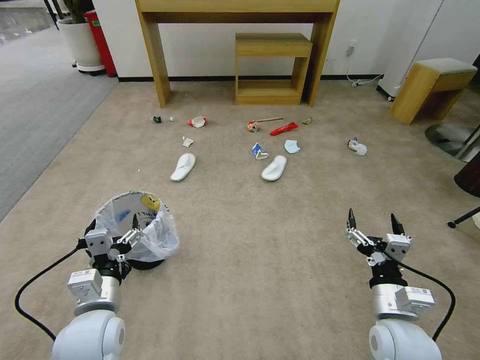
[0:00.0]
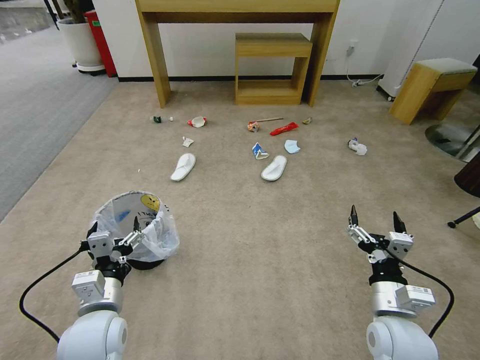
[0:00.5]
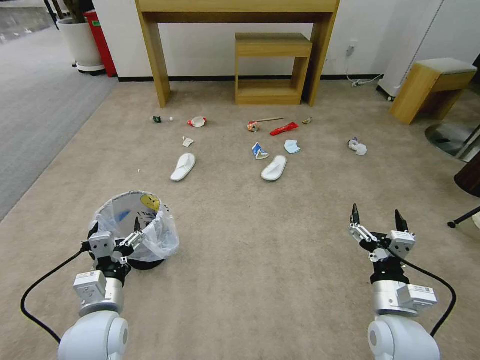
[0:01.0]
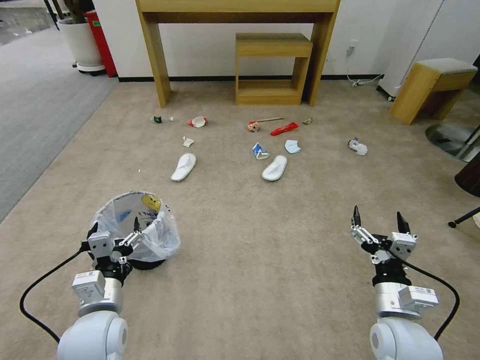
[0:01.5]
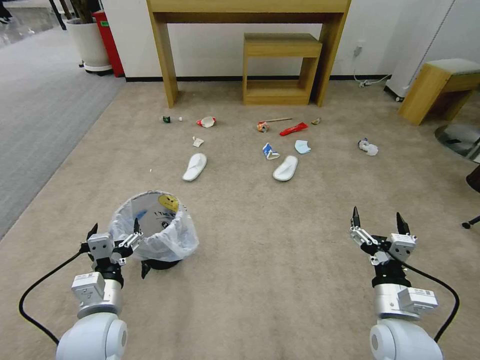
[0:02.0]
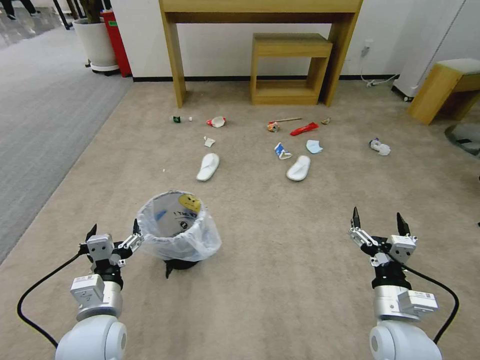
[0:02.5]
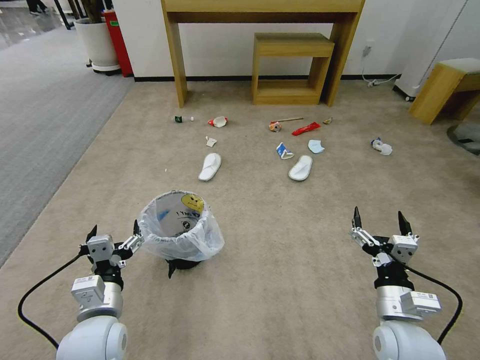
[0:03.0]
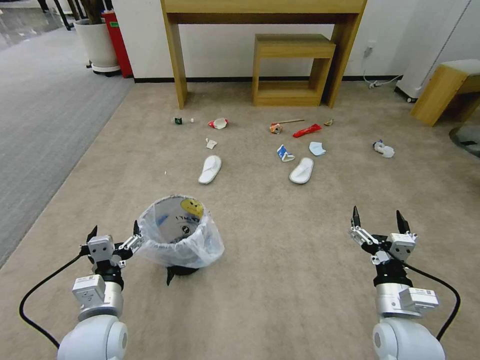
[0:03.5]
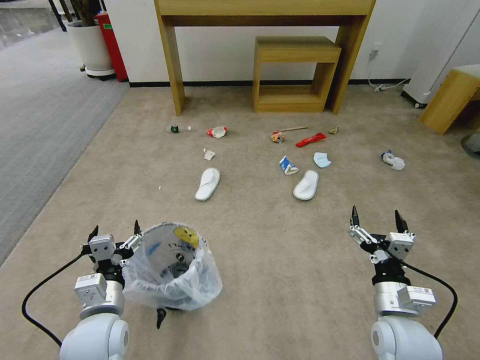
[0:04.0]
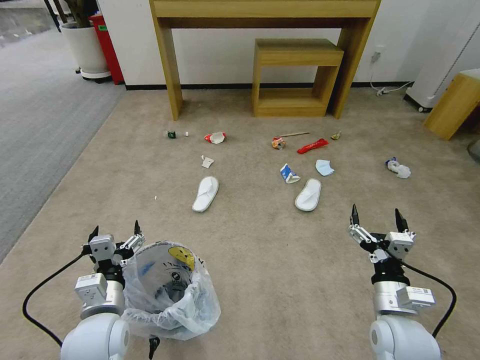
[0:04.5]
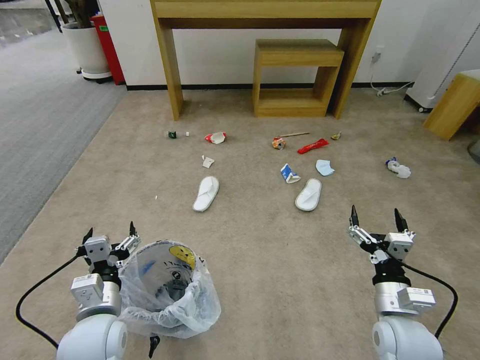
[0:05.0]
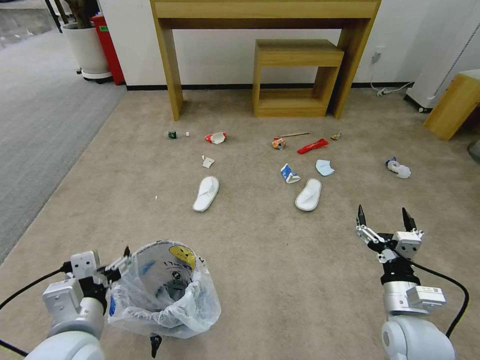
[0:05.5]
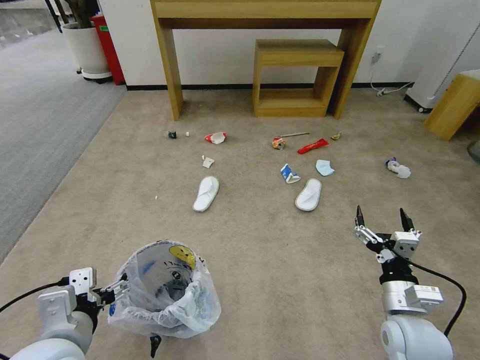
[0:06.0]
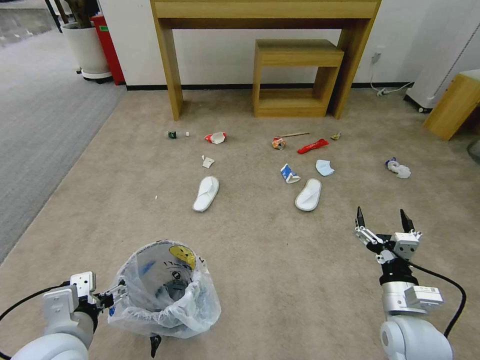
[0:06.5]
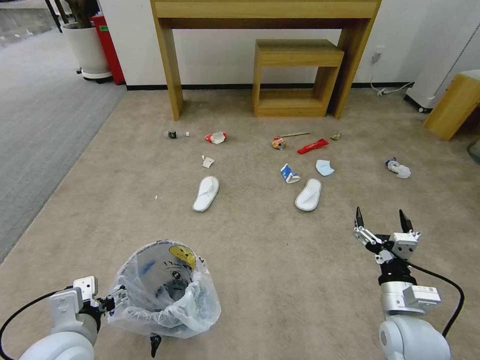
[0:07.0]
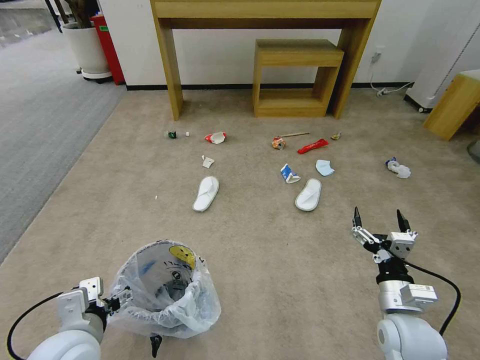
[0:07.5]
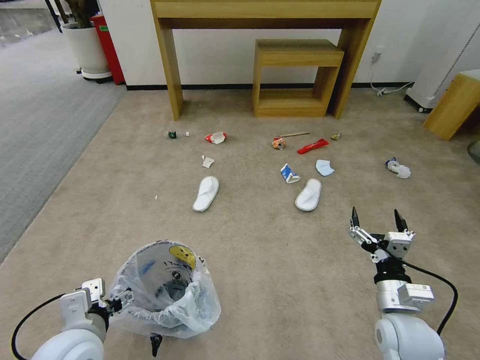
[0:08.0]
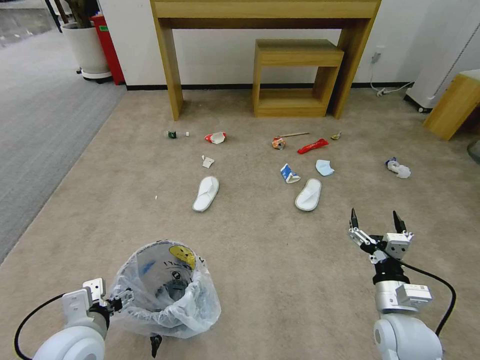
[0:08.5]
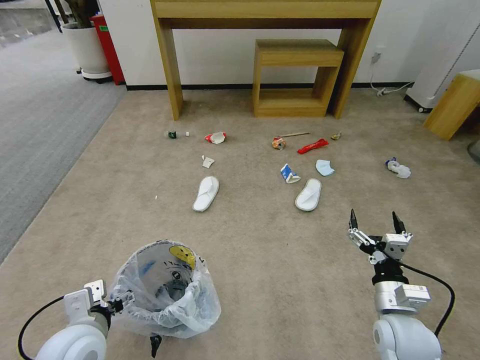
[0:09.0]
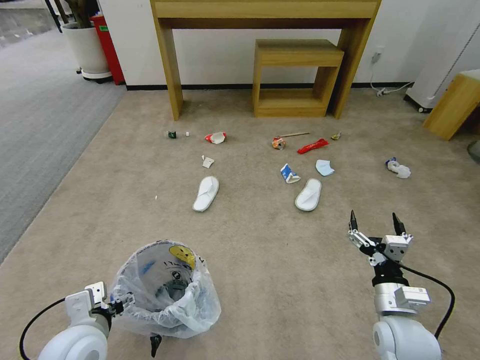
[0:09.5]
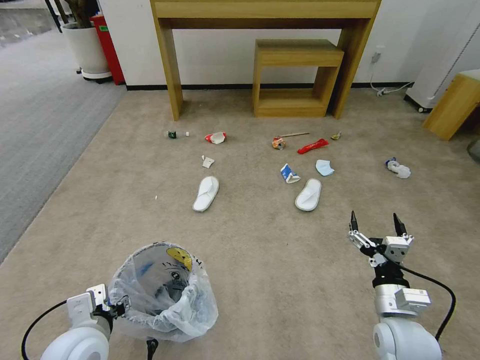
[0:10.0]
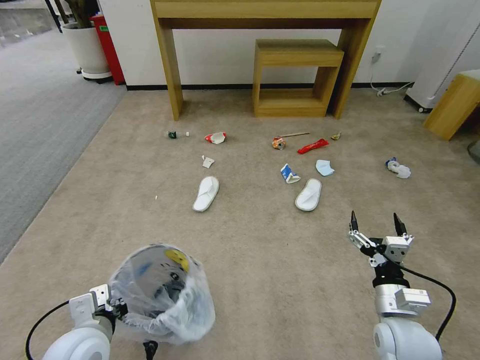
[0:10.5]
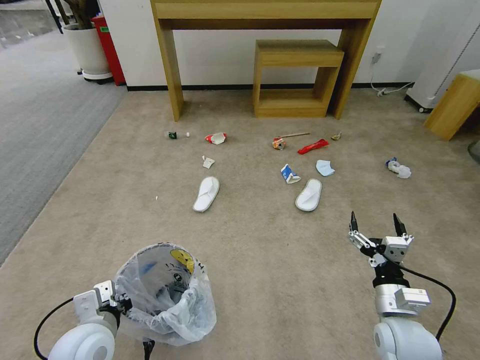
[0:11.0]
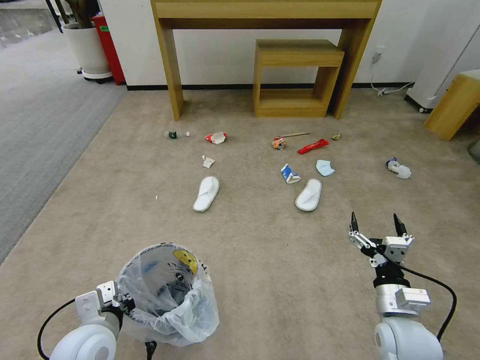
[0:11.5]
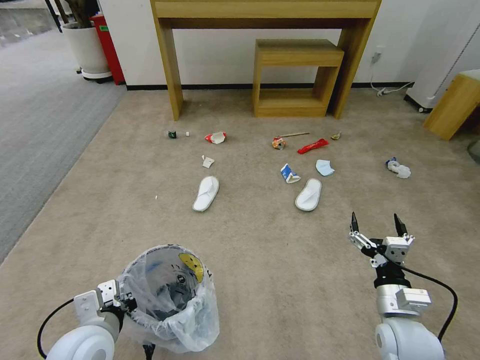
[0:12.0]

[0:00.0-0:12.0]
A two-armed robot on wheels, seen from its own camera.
Task of the whole recording: Pick up the trash bin and place the garbage on the floor into it.
0:04.0 to 0:06.0: The left gripper moves upward and backward, some 10 cm.
0:06.0 to 0:08.0: The left gripper moves downward, some 5 cm.
0:08.0 to 0:10.0: The left gripper closes up.
0:10.0 to 0:12.0: The left gripper closes up.

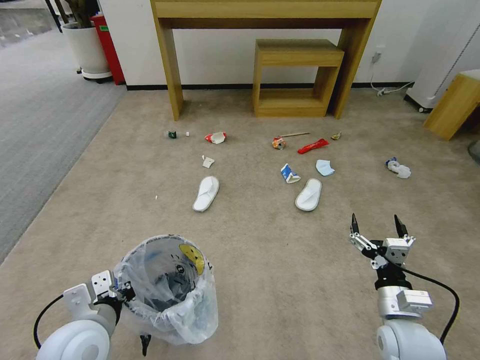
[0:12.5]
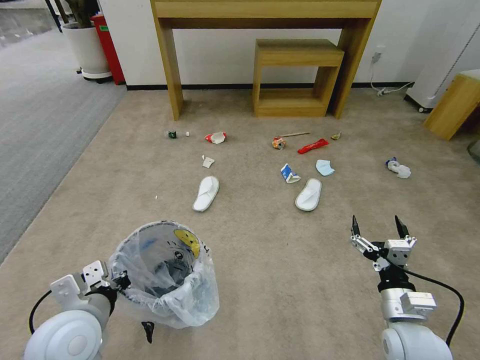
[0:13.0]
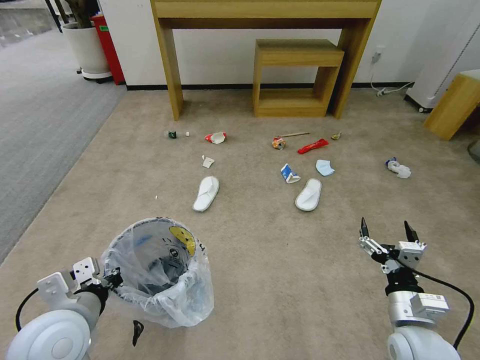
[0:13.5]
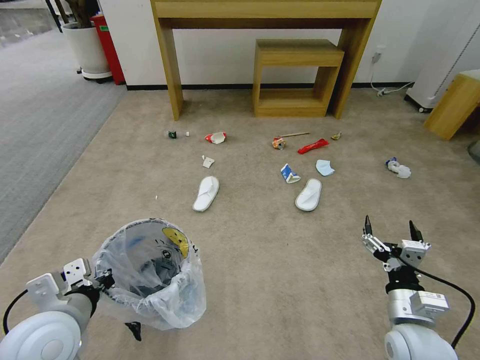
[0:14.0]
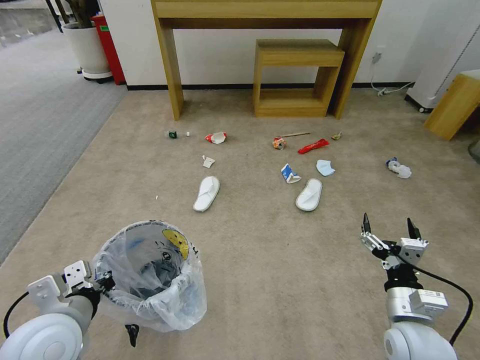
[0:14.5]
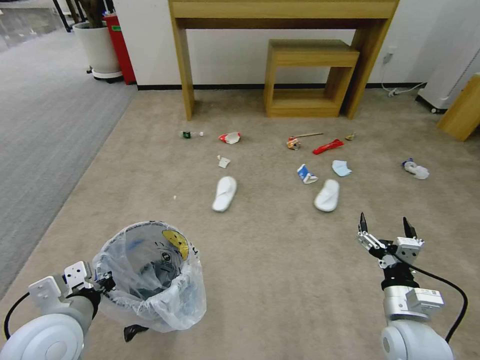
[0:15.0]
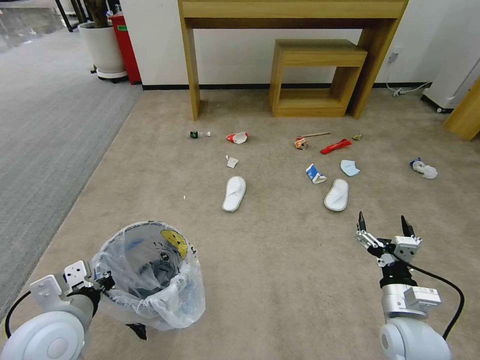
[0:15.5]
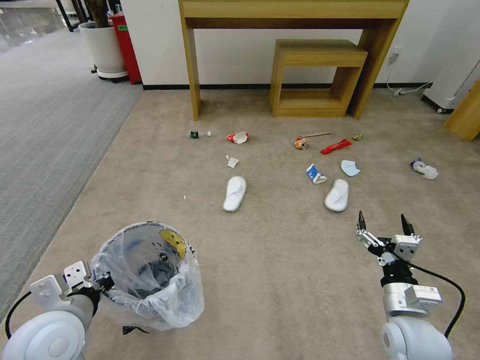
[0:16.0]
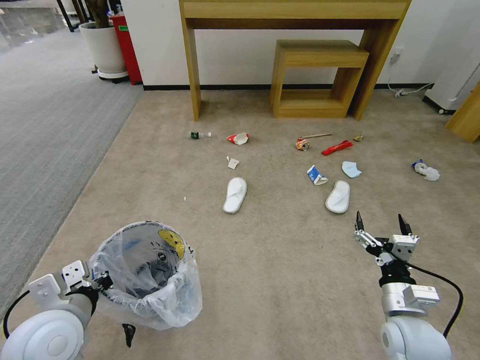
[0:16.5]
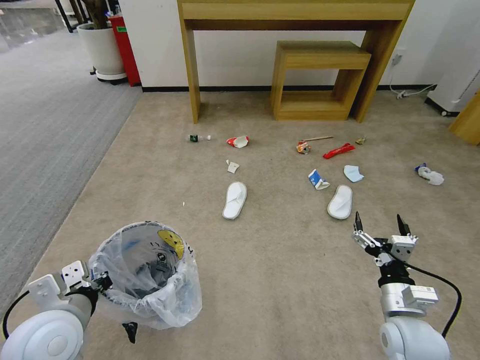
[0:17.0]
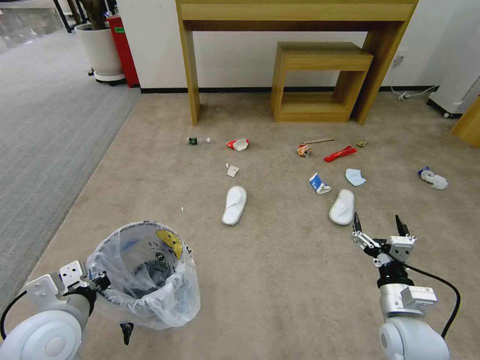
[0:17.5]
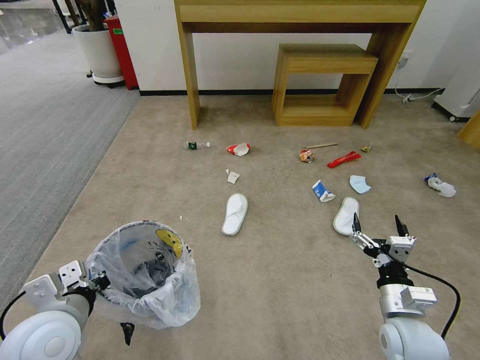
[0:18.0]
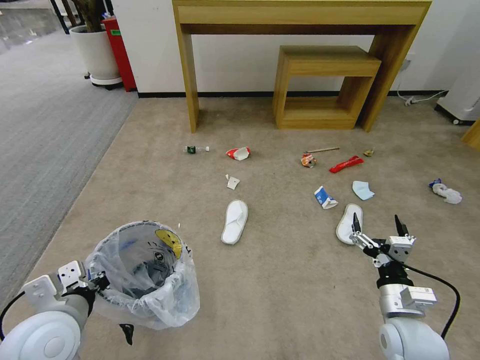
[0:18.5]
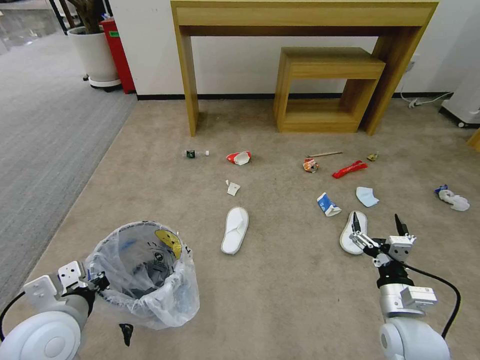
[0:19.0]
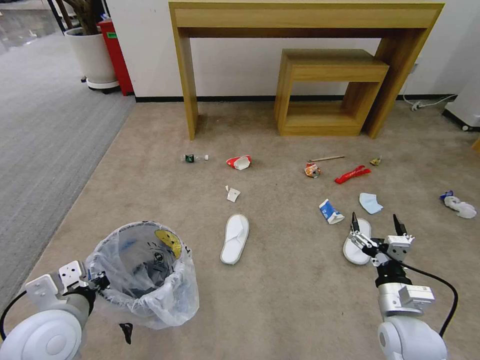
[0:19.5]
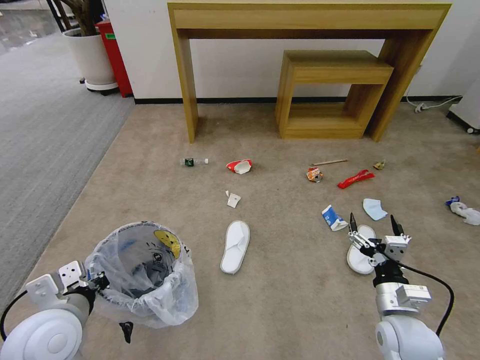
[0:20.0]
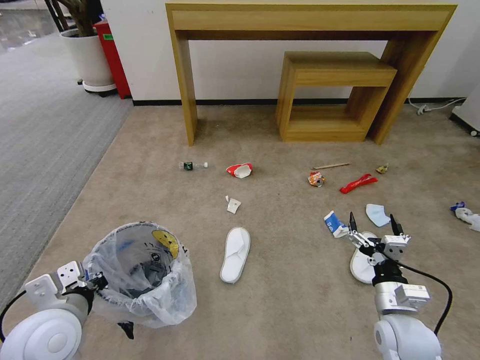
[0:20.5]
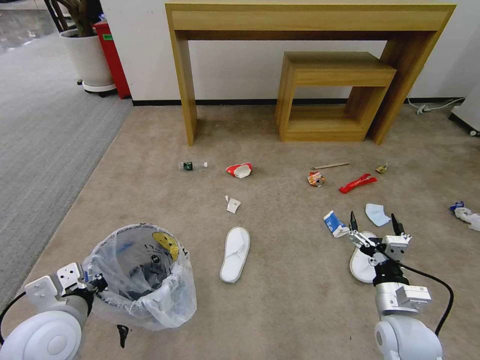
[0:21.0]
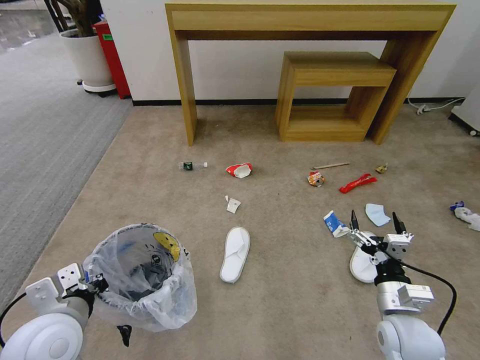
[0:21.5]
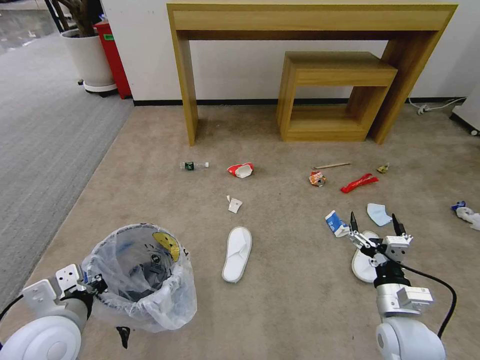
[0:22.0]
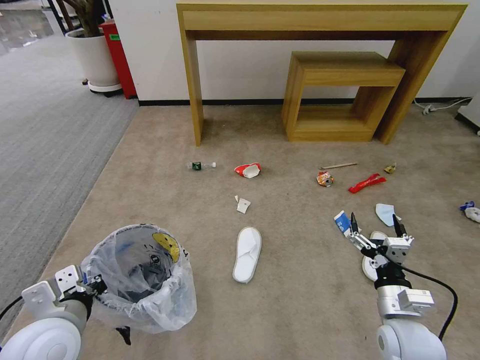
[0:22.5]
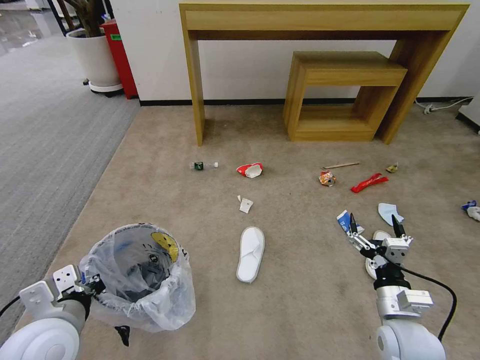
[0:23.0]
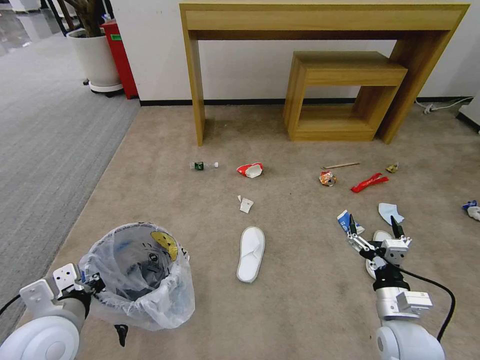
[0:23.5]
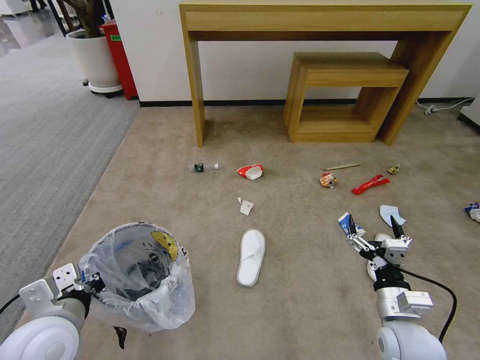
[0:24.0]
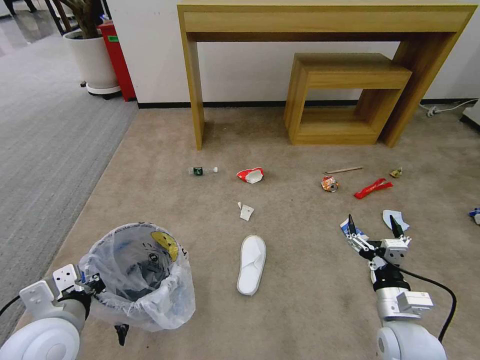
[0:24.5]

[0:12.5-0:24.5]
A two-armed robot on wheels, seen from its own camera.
Task of the whole recording: Pick up the trash bin and place the garbage on the floor into it.
0:12.5 to 0:16.5: The grippers make only small movements.
0:20.5 to 0:22.5: The grippers stay close to where they were, moving slightly.
0:22.5 to 0:24.5: Both grippers stay put.

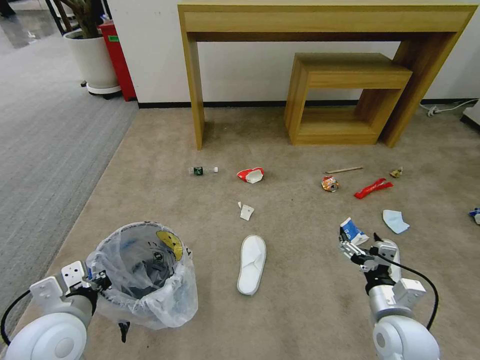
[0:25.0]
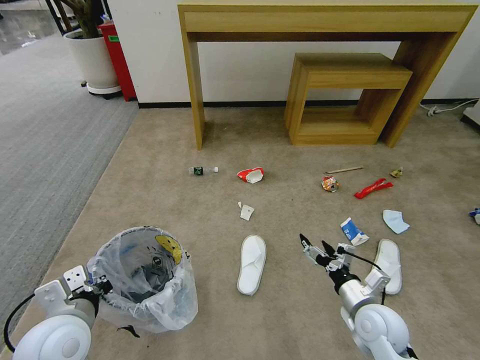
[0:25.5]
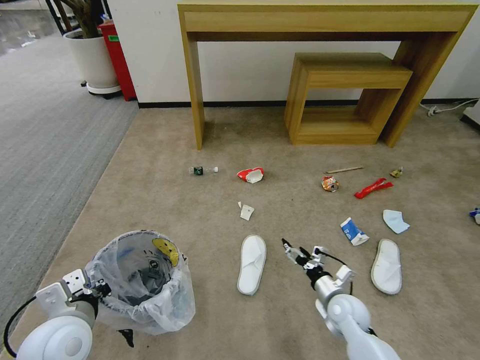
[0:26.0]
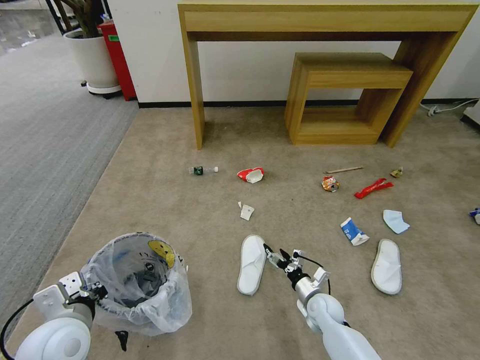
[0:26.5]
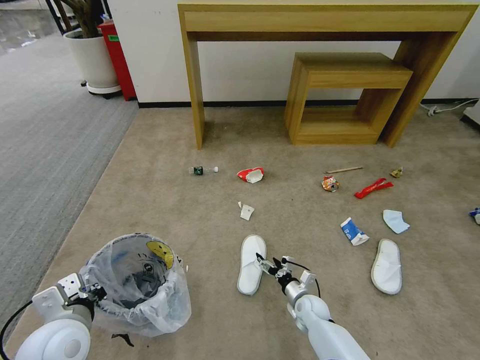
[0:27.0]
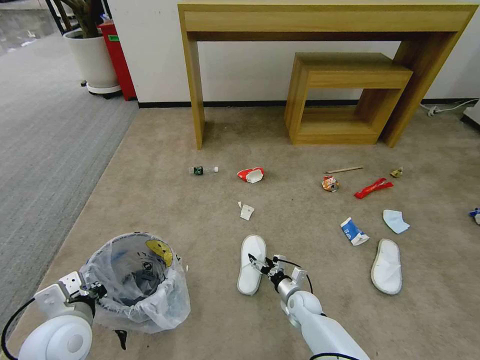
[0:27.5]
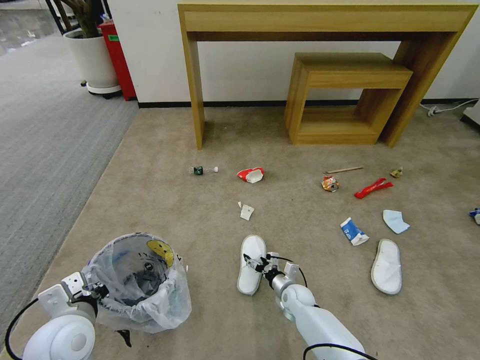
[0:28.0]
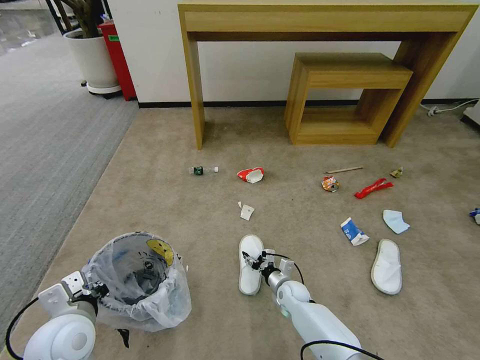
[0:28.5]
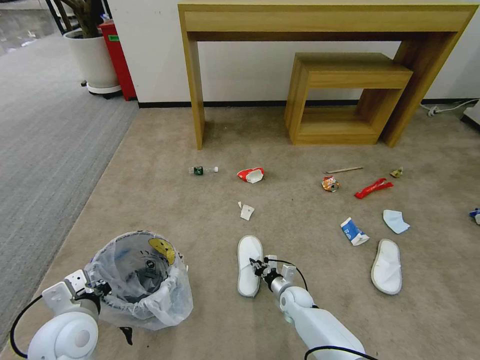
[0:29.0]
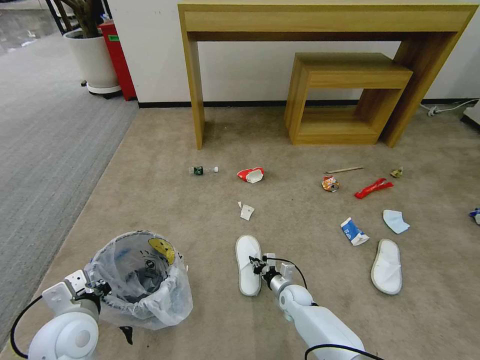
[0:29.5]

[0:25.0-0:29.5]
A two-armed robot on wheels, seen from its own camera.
Task of the whole recording: Pick up the trash bin and place the garbage on the floor into it.
0:25.0 to 0:27.0: The right gripper heads downward and forward, covering approximately 25 cm.
0:27.0 to 0:29.5: The right gripper moves some 5 cm, and closes its fingers.
